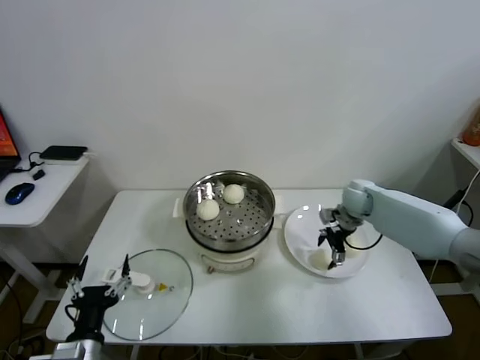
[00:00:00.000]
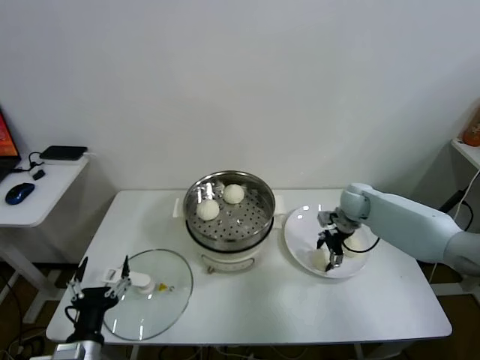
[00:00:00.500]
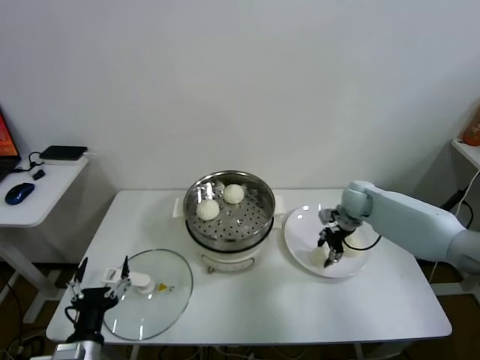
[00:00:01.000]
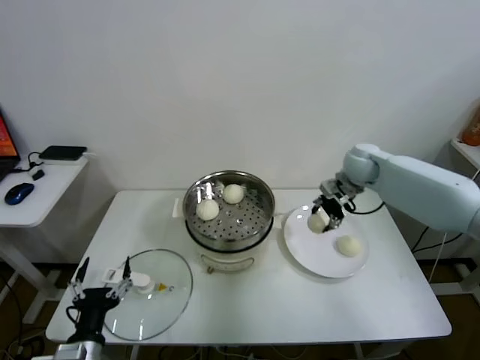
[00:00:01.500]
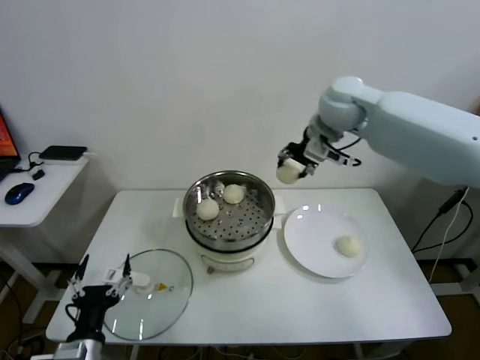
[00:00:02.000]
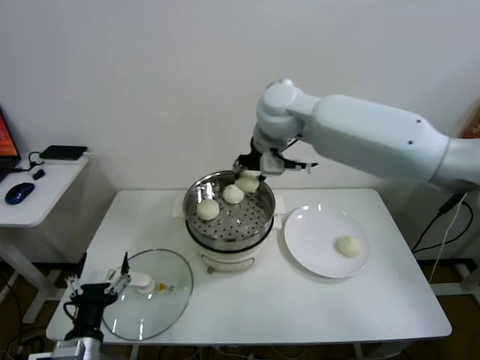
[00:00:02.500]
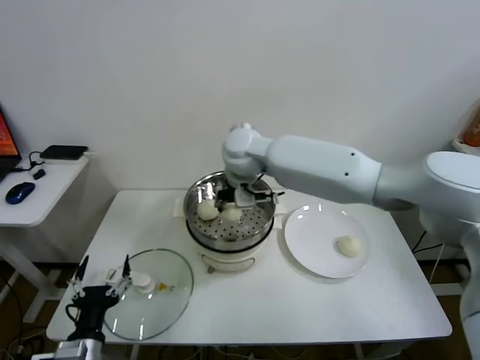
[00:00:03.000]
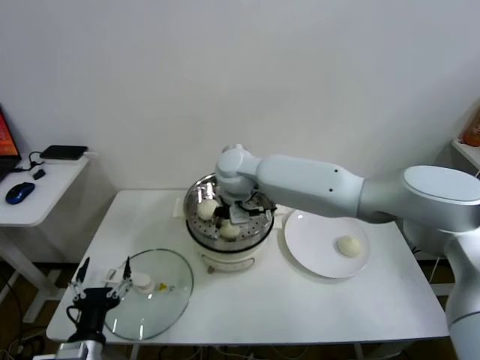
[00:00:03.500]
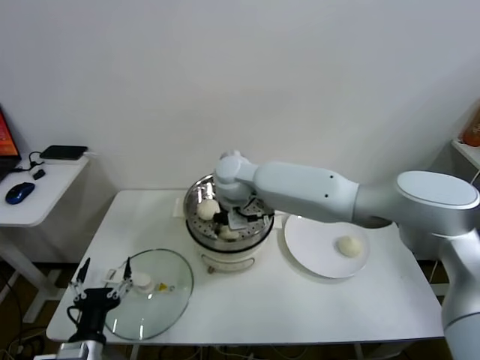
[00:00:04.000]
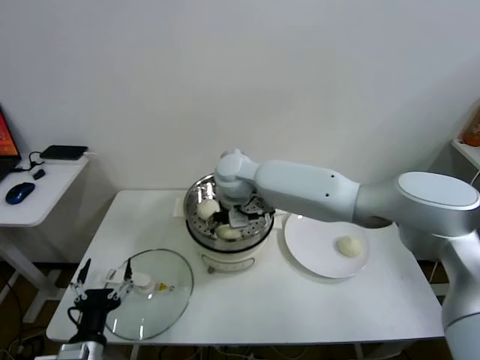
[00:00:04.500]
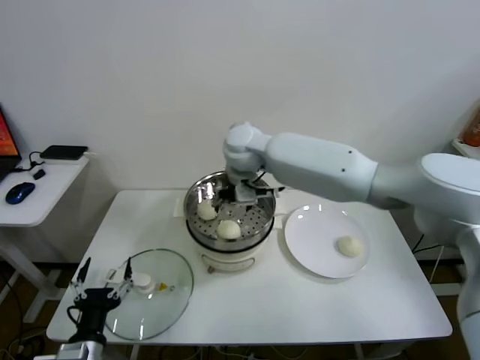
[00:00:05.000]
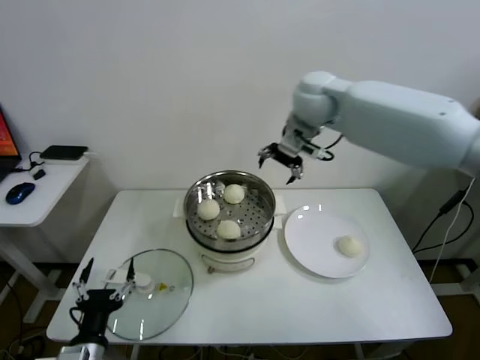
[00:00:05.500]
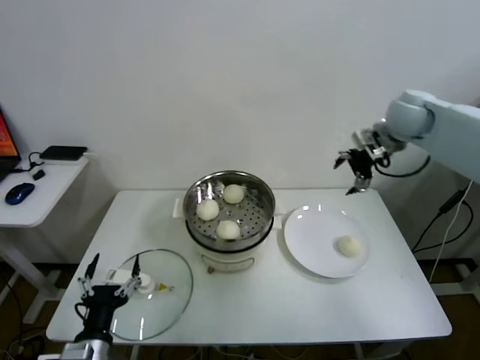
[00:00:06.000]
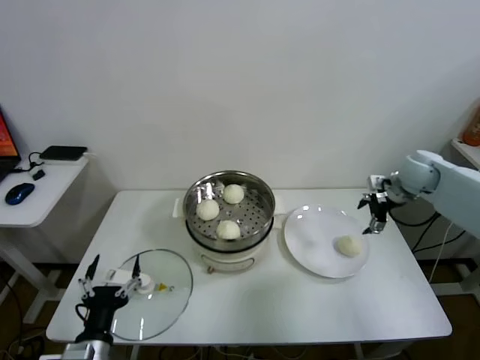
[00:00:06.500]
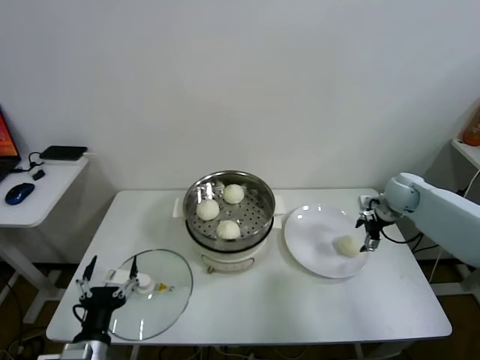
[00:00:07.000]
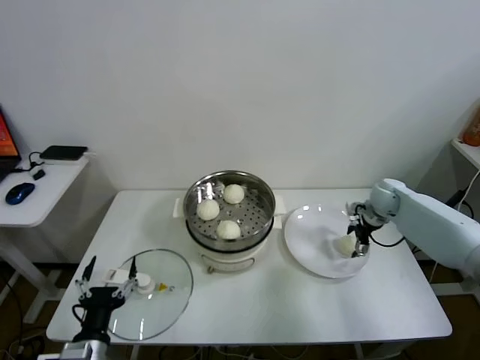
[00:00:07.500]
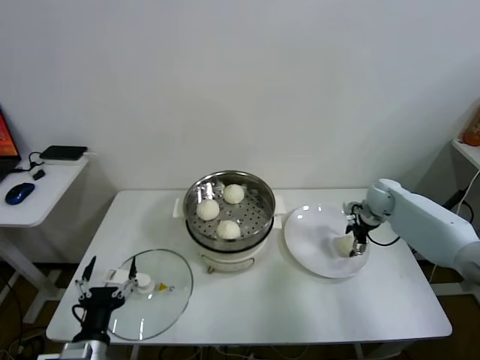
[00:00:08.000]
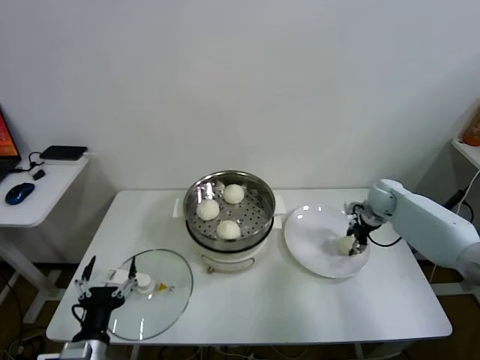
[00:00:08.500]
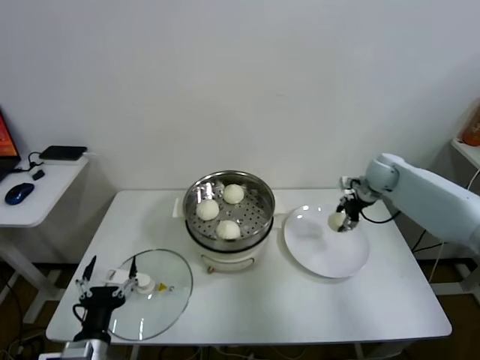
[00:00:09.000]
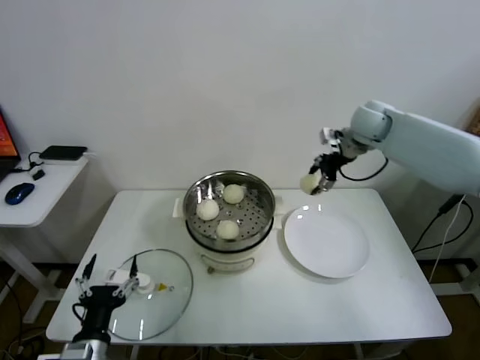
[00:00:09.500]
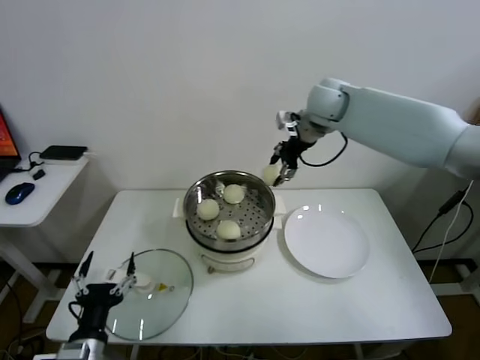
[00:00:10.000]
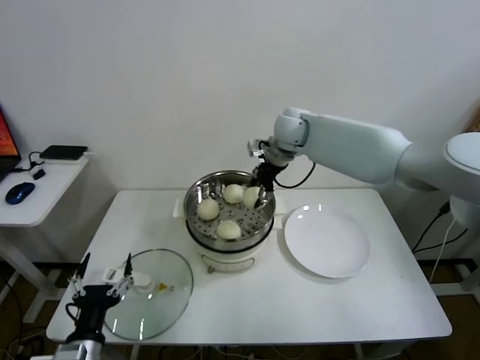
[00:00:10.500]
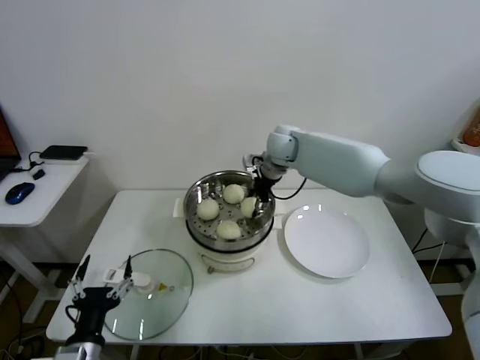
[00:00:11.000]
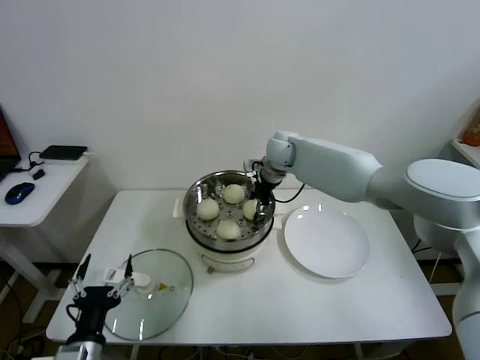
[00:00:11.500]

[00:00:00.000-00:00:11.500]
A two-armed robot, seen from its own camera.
Task of the whole recording: take steamed baozi put them in steamer.
Step, 00:00:01.000 to 00:00:04.500: Place the baozi on the steamer with right gripper.
Step, 00:00:05.000 to 00:00:08.500: Grasp the baozi in the plate with right gripper.
00:00:00.000 to 00:00:02.000: The right gripper travels upward and to the left by about 30 cm, and closes.
00:00:02.000 to 00:00:04.000: The right gripper travels to the left and downward by some 25 cm.
00:00:04.000 to 00:00:06.000: The right gripper travels to the right by about 35 cm, and opens its fingers.
00:00:06.000 to 00:00:07.500: The right gripper moves downward, some 25 cm.
00:00:07.500 to 00:00:09.500: The right gripper heads upward and to the left, covering approximately 20 cm, and closes.
00:00:09.500 to 00:00:11.500: The right gripper heads to the left and downward, covering some 20 cm.

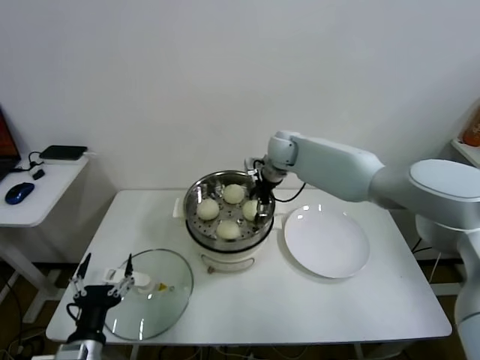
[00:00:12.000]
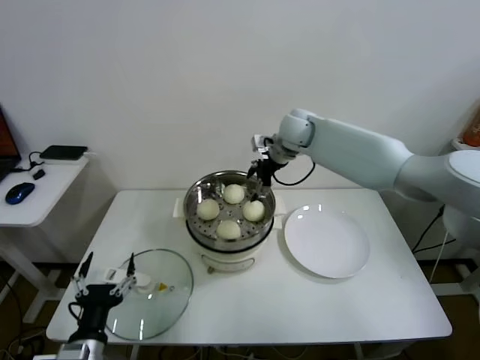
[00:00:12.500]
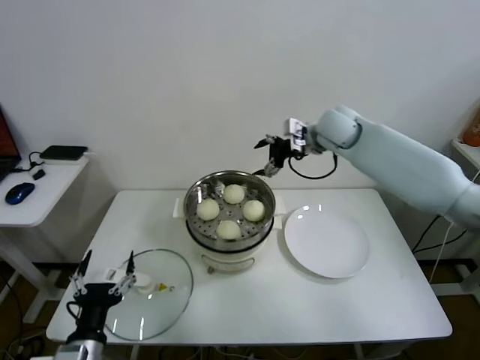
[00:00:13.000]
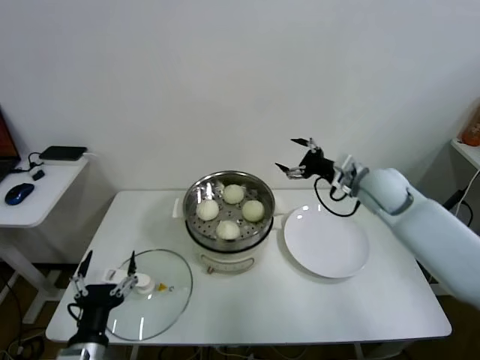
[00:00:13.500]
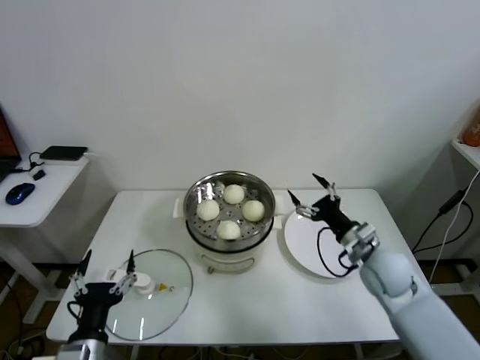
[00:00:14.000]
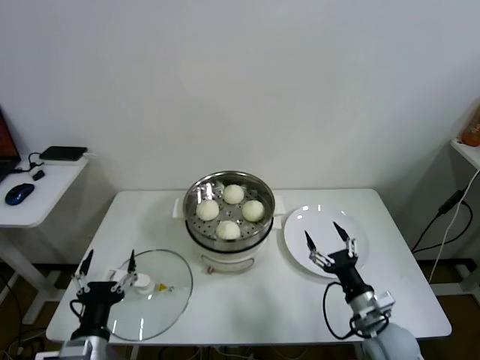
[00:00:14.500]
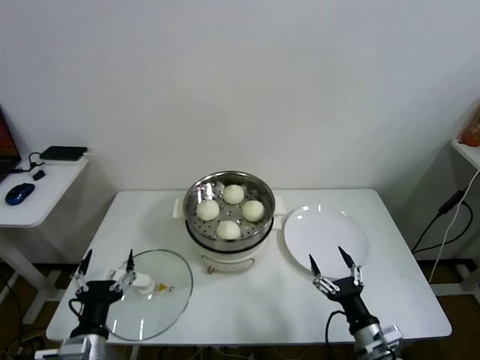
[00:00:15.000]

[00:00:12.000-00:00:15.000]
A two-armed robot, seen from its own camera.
Task of the whole recording: take steamed baozi put them in steamer.
00:00:12.000 to 00:00:13.500: The right gripper heads to the right and backward, covering some 25 cm.
00:00:13.500 to 00:00:15.000: The right gripper is displaced backward and downward by roughly 40 cm.
